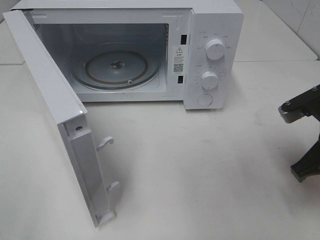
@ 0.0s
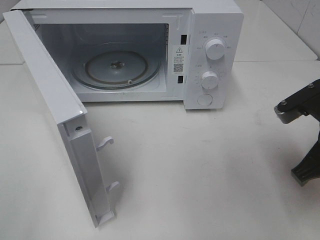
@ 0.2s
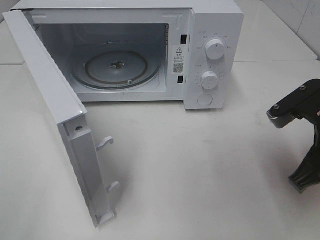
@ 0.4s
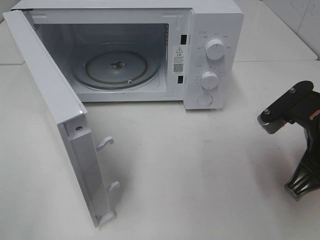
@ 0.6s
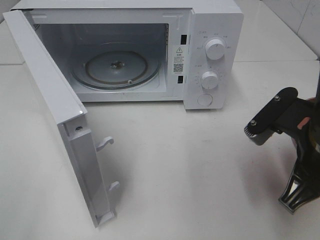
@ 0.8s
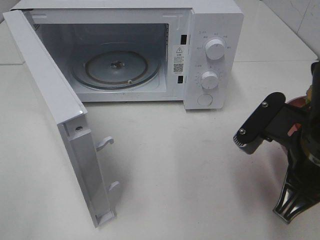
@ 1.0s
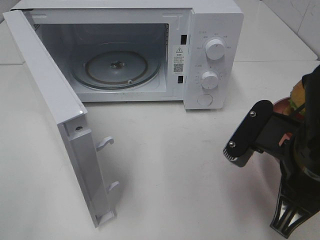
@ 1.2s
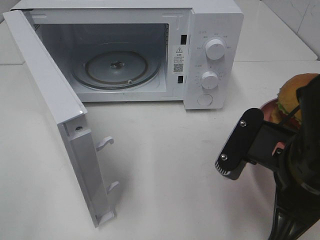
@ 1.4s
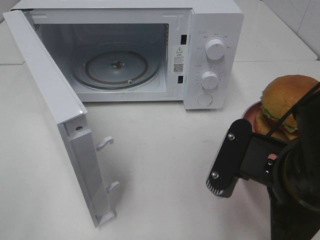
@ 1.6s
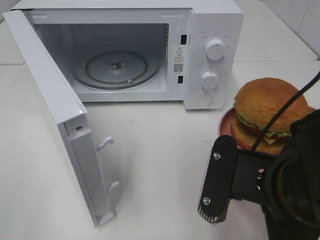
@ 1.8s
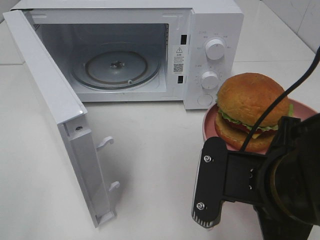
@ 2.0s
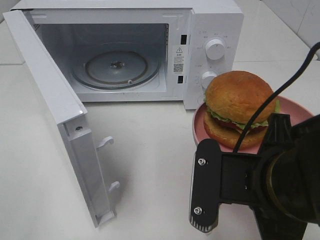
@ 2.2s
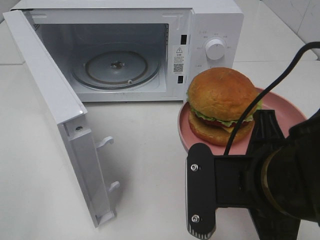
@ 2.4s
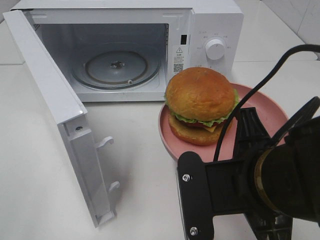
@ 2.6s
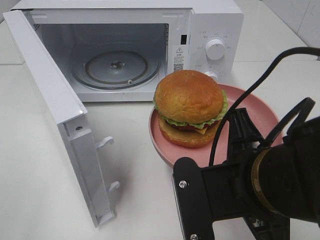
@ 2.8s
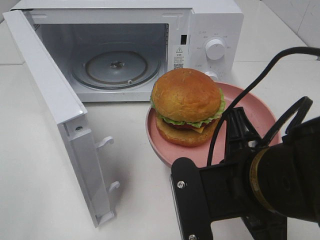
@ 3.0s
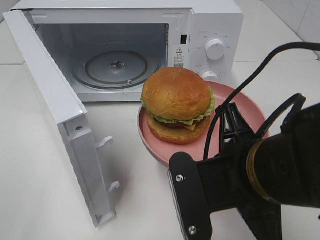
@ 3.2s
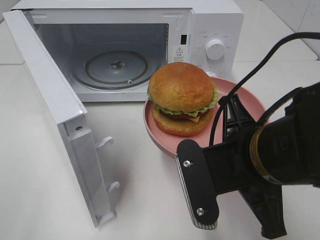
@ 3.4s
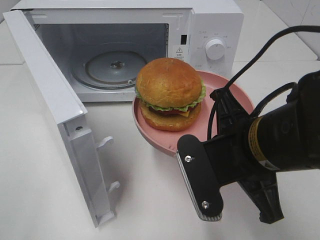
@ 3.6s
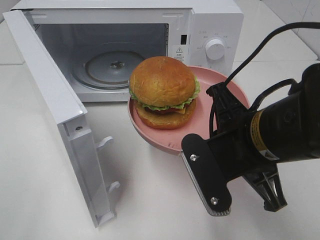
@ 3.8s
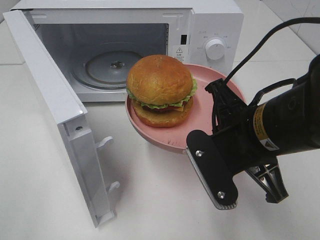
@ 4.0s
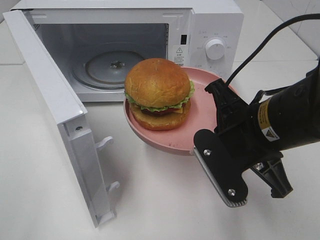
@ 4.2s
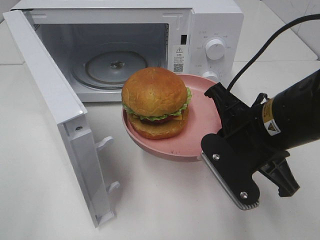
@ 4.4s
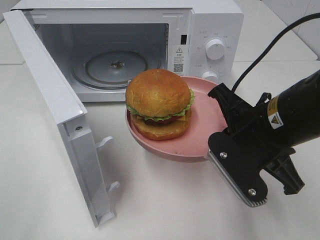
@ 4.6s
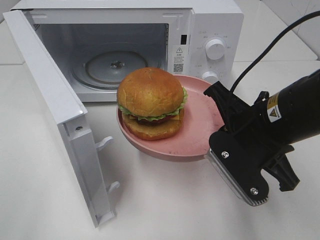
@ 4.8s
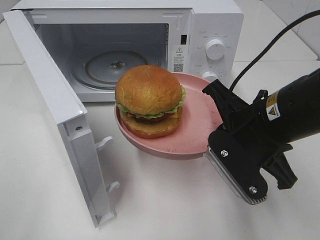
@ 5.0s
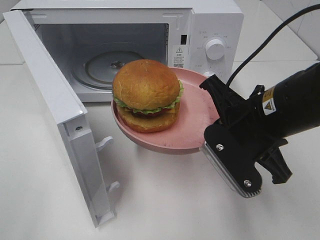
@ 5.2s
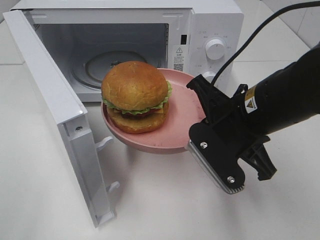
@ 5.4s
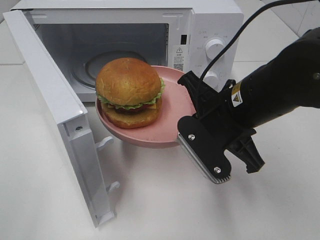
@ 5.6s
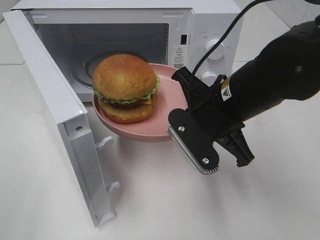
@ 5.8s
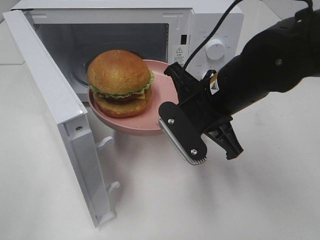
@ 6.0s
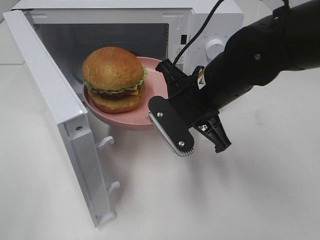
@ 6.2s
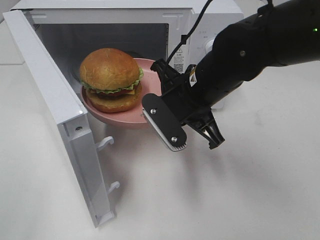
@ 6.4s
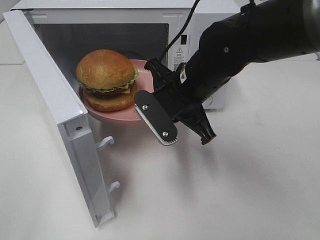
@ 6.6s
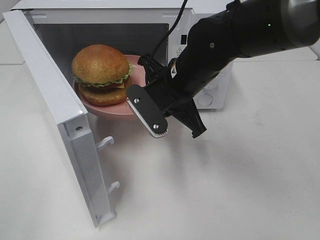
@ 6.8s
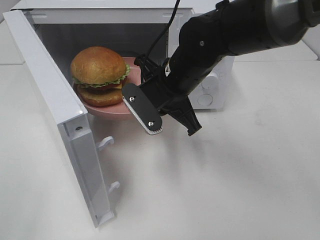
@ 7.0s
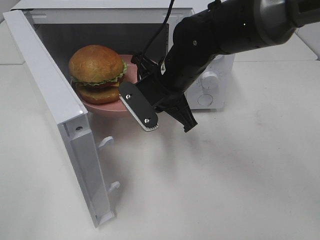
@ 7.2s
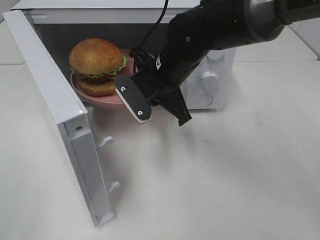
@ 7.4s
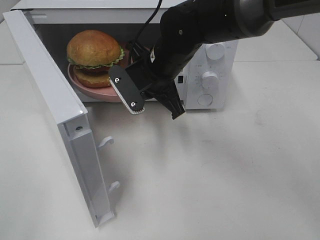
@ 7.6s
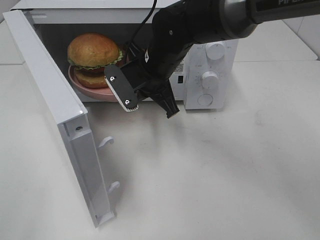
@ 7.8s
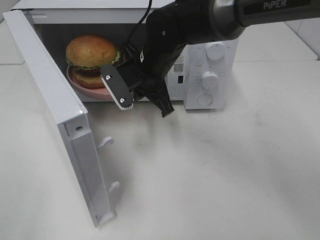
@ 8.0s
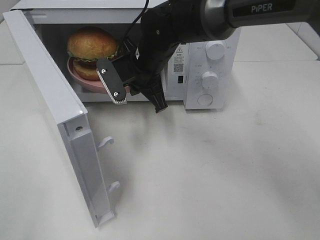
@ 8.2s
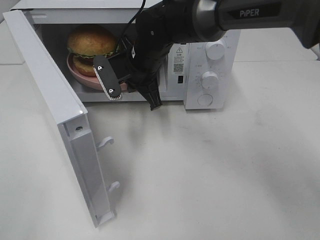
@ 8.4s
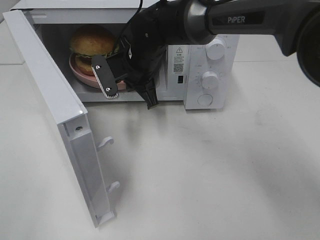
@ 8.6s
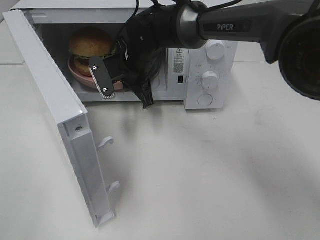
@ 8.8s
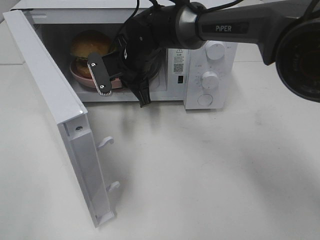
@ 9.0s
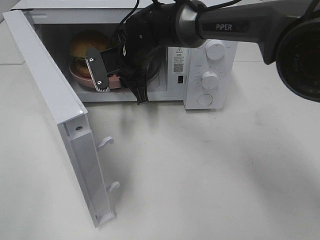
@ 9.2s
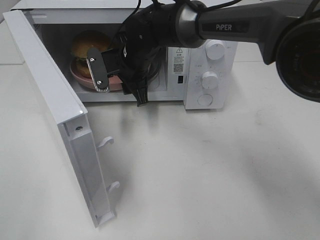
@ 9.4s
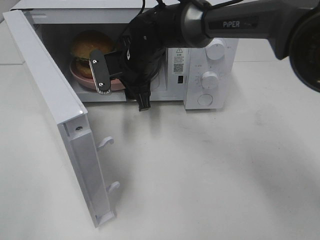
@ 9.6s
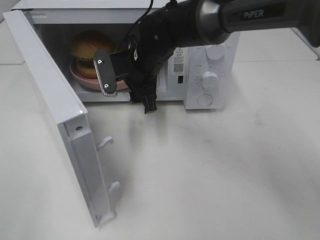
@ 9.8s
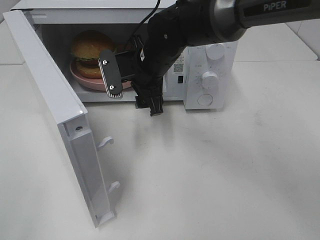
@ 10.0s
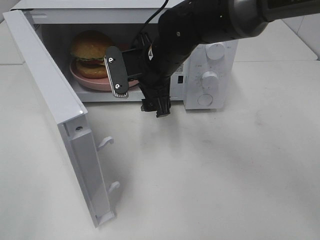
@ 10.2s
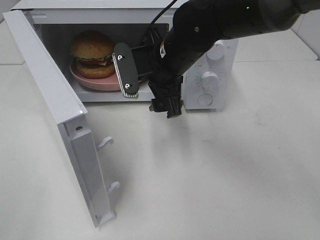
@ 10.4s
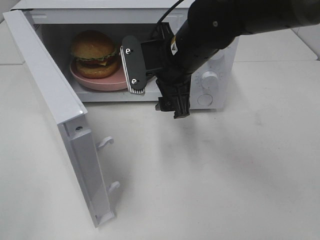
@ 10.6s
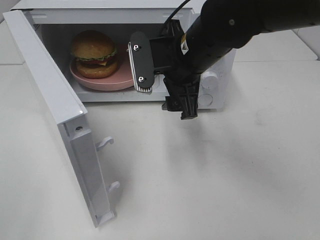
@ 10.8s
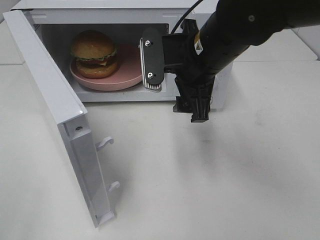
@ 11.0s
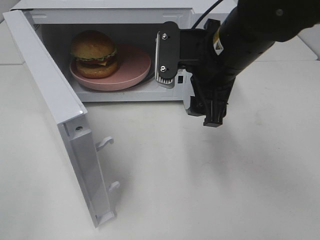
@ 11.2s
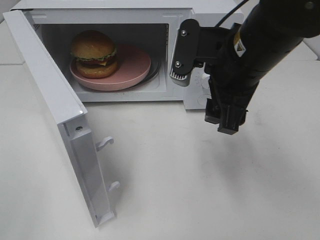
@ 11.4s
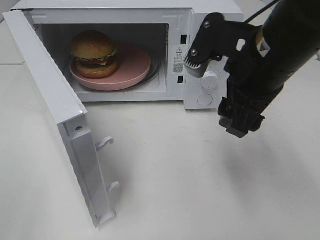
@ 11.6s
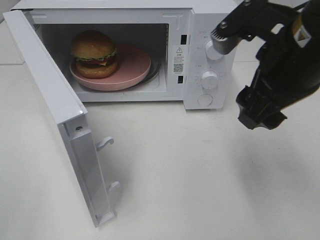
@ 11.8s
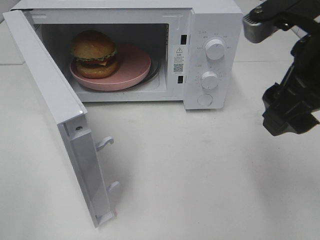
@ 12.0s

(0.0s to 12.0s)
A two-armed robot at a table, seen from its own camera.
Task of the whole recording: Heat the burger.
Step, 0.0s - 9.6s: Right hand: place the plate in the microwave.
0.0s - 1.6s: The right gripper moves to the left and backward, roughly 15 cm.
3.0s - 4.4s: The right gripper moves forward, about 10 cm.
4.4s - 6.0s: The right gripper shifts some 5 cm forward.
6.0s - 7.6s: The right gripper travels forward and to the left by some 10 cm.
7.6s - 9.0s: The right gripper travels forward by some 5 cm.
9.0s - 10.4s: The right gripper heads backward and to the right, covering about 10 cm, and opens up.
10.4s - 12.0s: The right gripper heads backward, to the right and upward, covering about 25 cm.

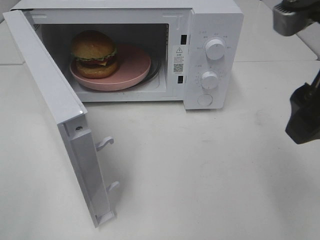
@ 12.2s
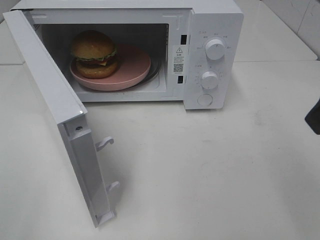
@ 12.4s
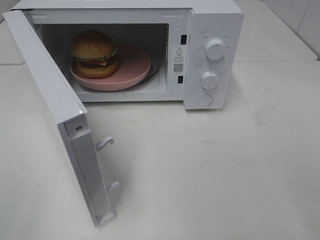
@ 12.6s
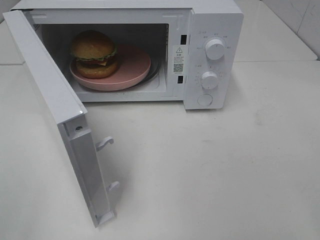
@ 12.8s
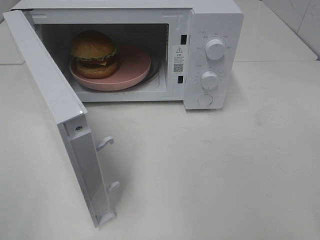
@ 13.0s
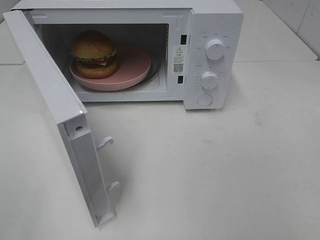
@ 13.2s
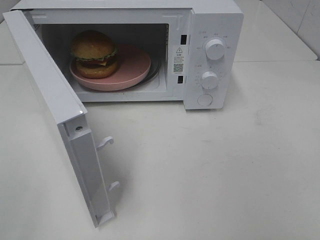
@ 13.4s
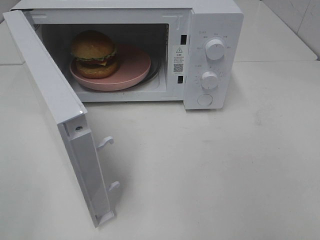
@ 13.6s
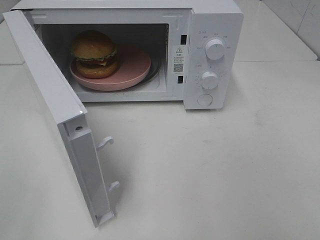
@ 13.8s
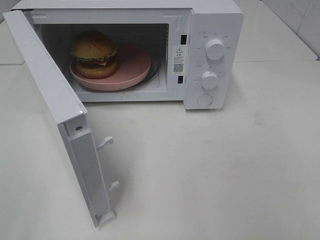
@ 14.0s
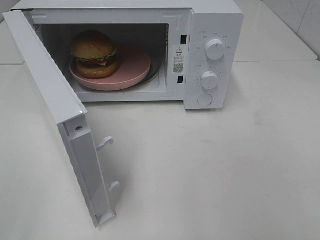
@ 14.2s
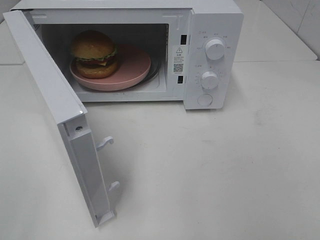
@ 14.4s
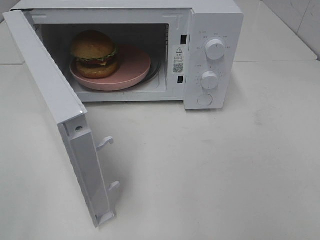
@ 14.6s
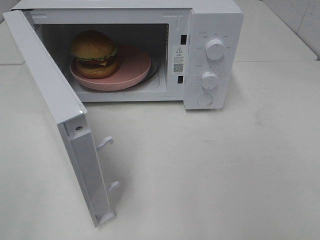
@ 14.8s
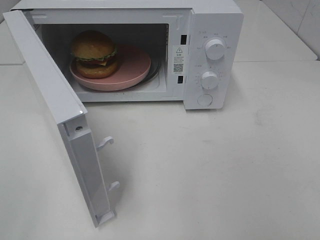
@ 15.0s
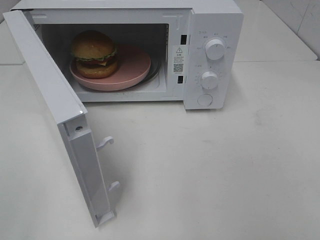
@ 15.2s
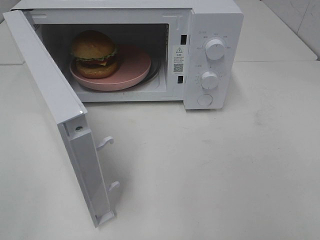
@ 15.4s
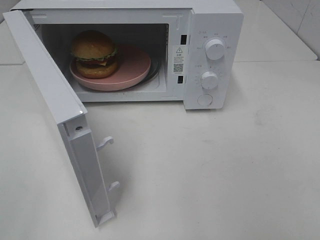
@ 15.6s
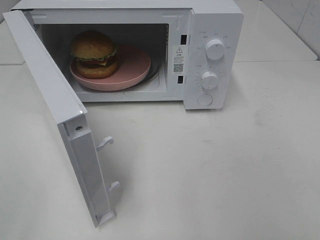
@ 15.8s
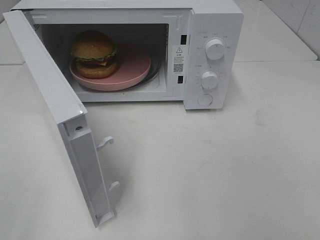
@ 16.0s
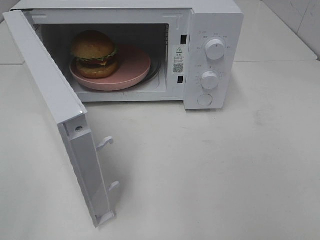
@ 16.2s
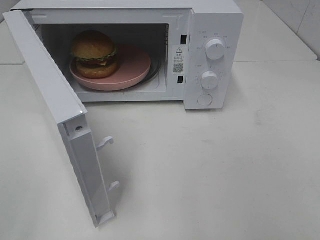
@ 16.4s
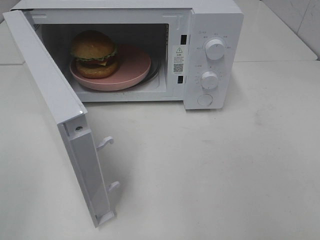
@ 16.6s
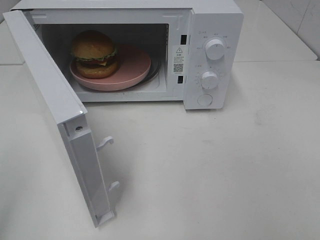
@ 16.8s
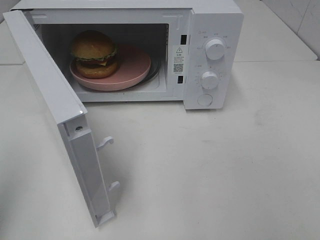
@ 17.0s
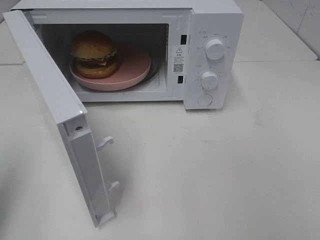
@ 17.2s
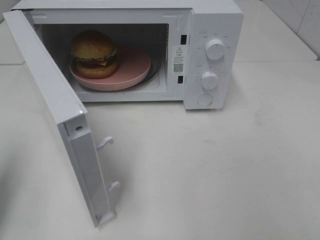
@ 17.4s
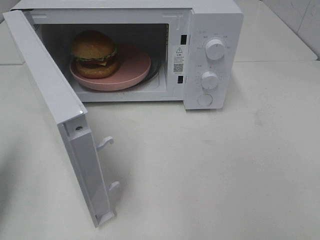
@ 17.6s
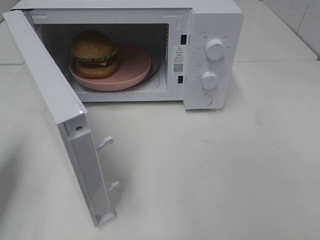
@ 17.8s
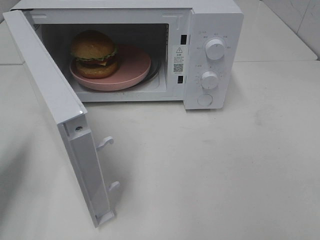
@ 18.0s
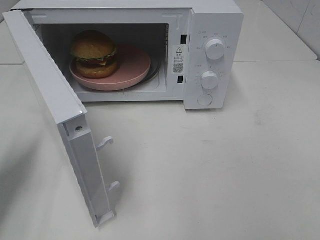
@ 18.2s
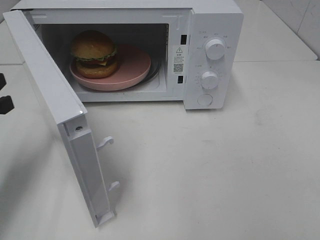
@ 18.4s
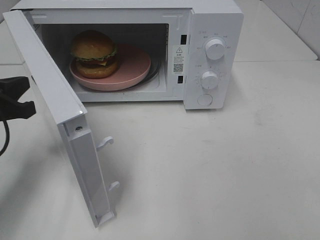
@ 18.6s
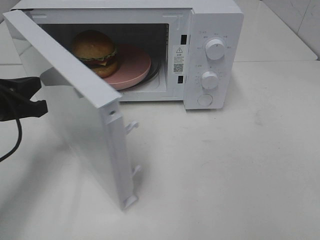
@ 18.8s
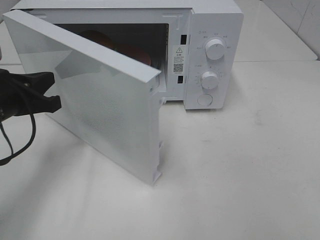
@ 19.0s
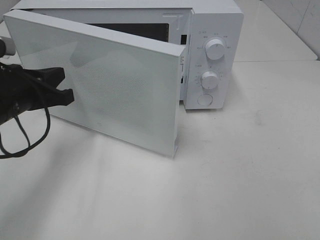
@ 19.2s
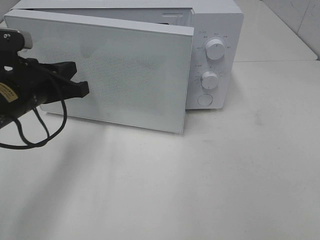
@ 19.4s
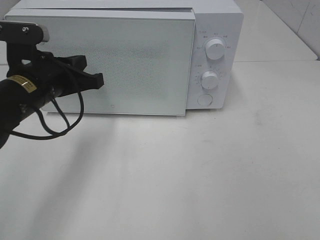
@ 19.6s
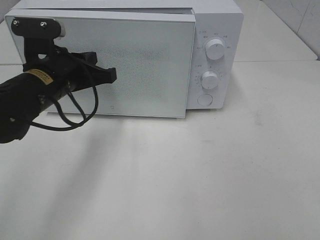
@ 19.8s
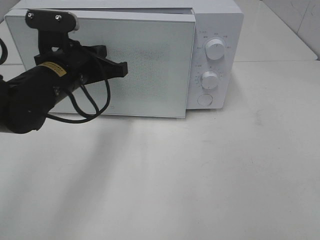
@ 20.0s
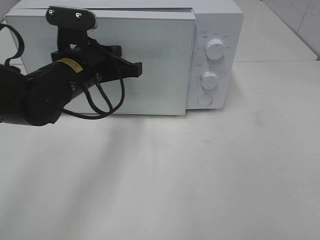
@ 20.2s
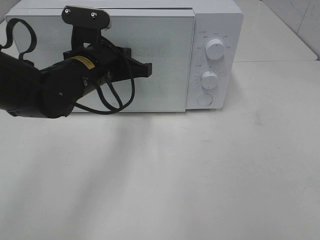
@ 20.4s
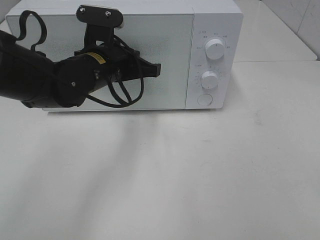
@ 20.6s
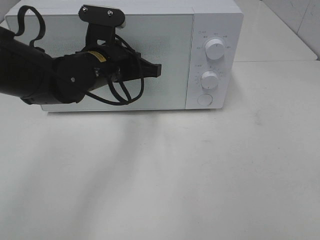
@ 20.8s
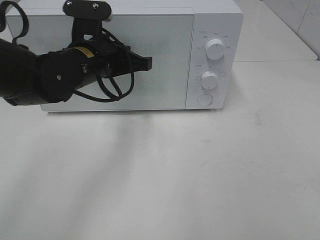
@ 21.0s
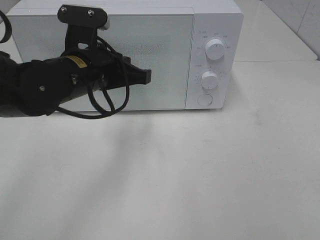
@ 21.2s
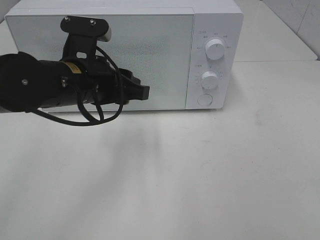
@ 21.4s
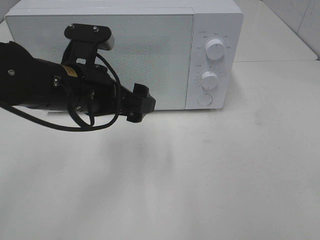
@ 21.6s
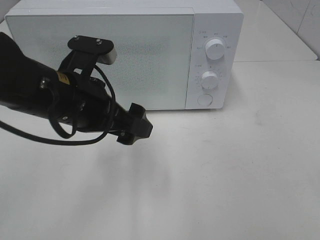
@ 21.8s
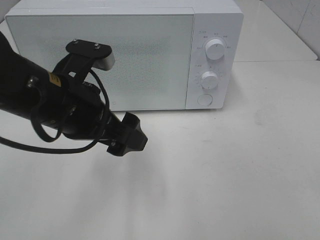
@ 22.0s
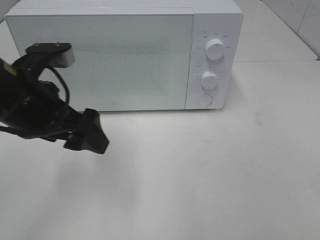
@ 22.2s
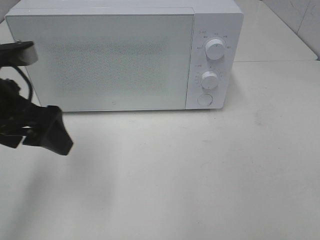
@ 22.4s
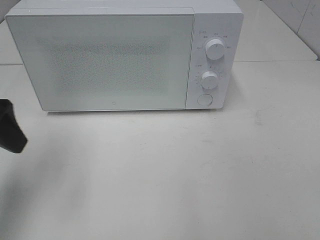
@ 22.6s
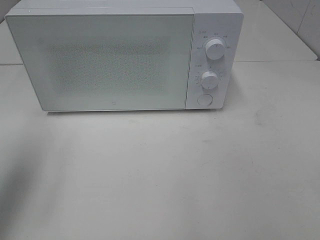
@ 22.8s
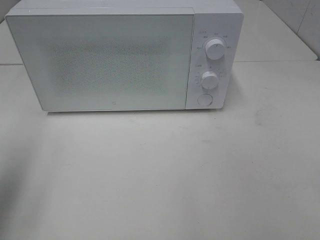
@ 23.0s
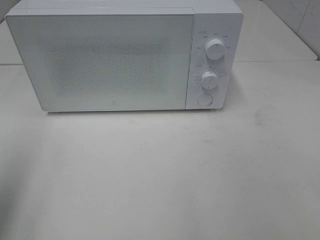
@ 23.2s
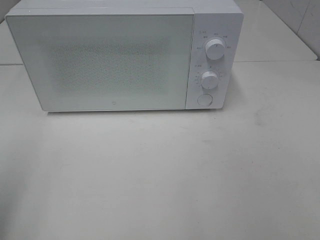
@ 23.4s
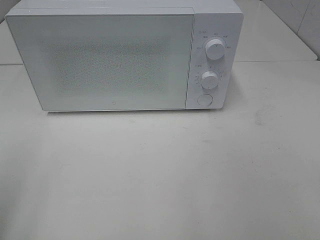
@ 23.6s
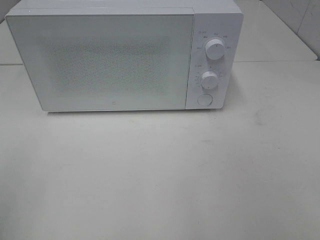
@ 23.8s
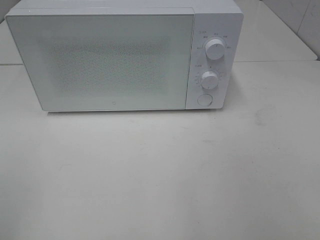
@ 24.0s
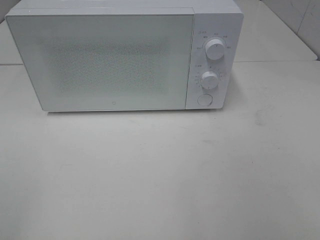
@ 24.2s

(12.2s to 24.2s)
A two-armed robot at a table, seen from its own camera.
Task of the whole recording: Heat the burger.
Step, 12.2s - 21.2s: Left hand: close the microwave door.
12.2s - 13.8s: The right gripper shifts some 20 cm backward and to the right.
16.6s - 18.2s: The left gripper is displaced forward and downward by roughly 25 cm, and closes.
18.2s - 19.8s: The left gripper travels to the right and forward by about 15 cm.
19.8s - 21.2s: The left gripper shifts by roughly 5 cm.
21.2s - 22.6s: The left gripper heads to the left, backward and upward, covering about 20 cm, and opens its fingers.
22.6s - 24.2s: The left gripper heads backward, covering some 20 cm.
